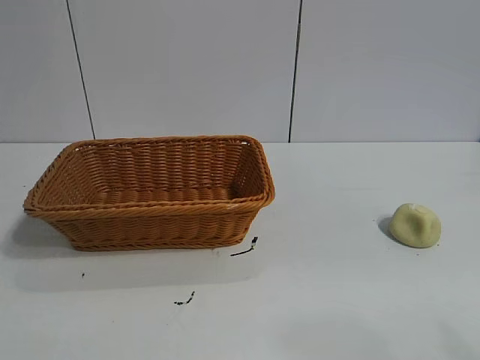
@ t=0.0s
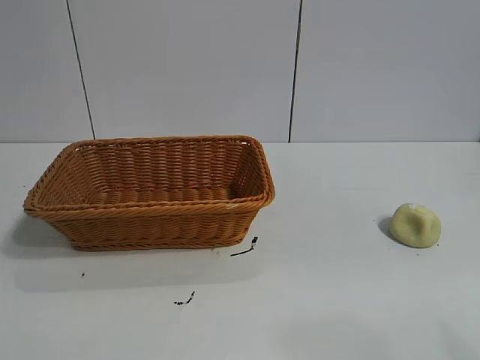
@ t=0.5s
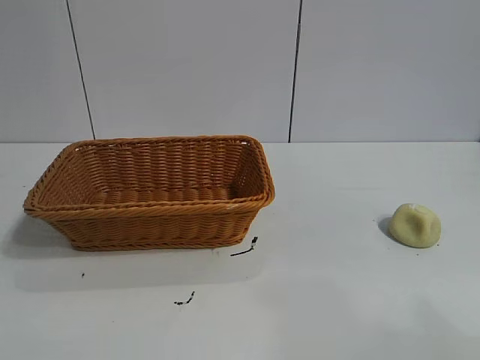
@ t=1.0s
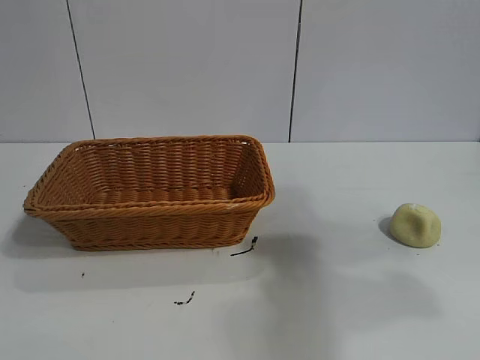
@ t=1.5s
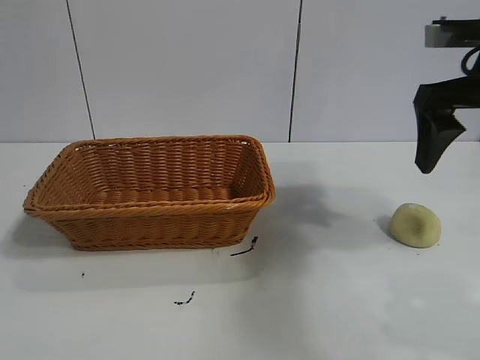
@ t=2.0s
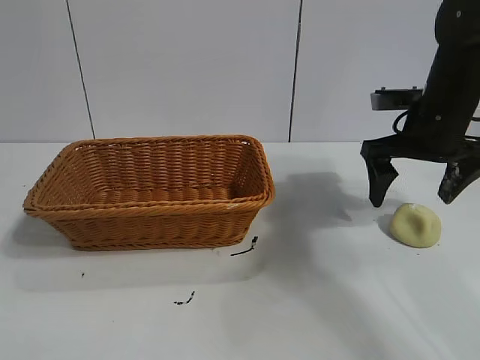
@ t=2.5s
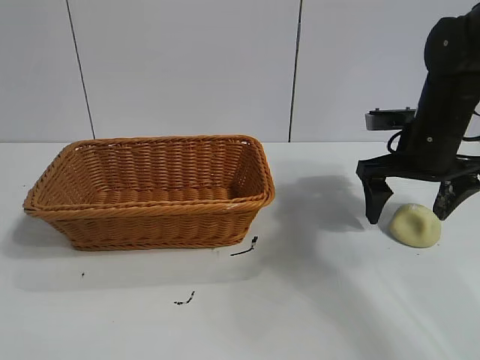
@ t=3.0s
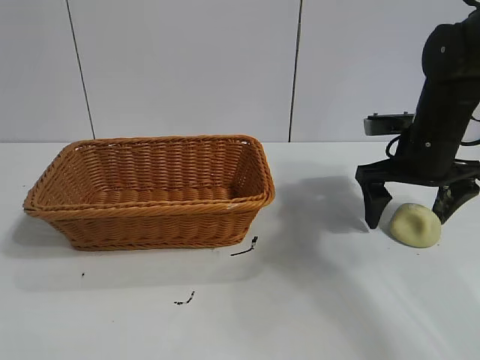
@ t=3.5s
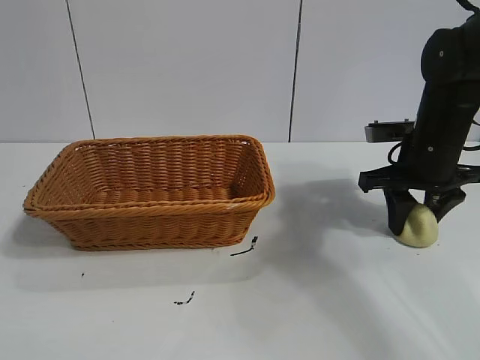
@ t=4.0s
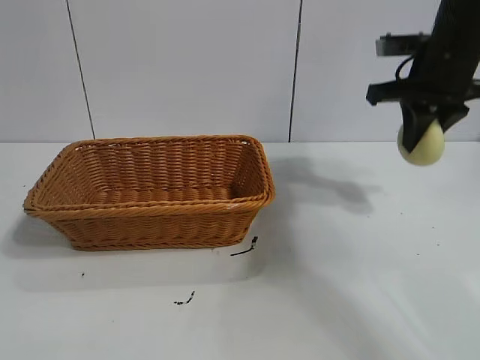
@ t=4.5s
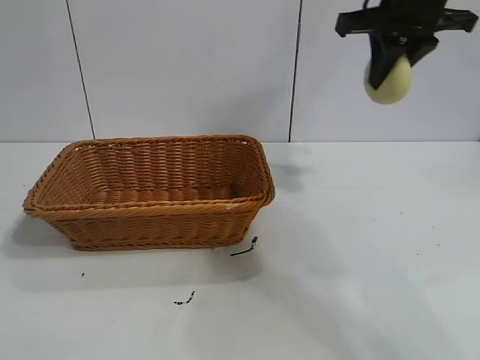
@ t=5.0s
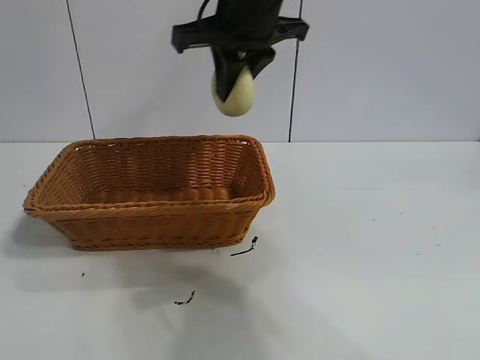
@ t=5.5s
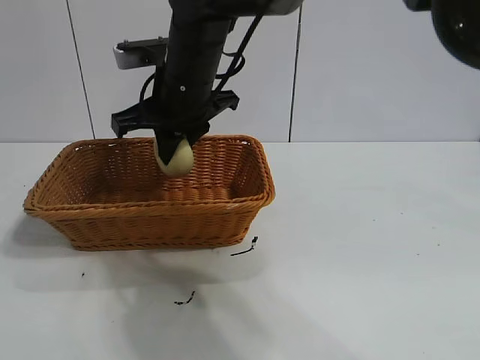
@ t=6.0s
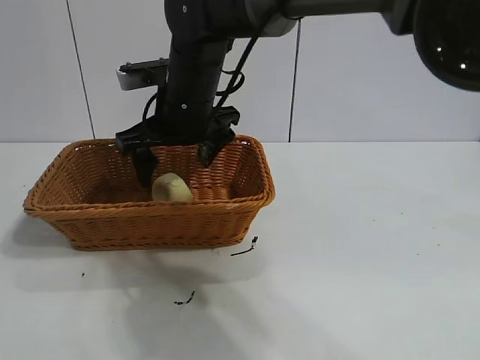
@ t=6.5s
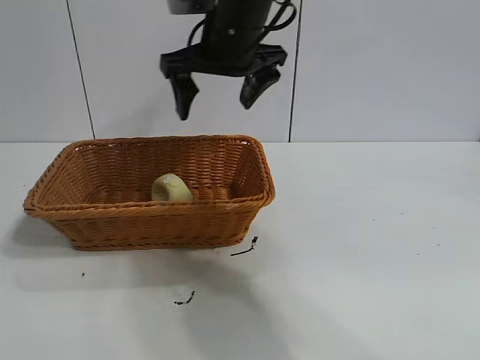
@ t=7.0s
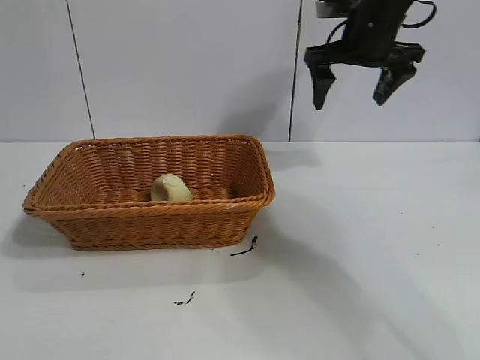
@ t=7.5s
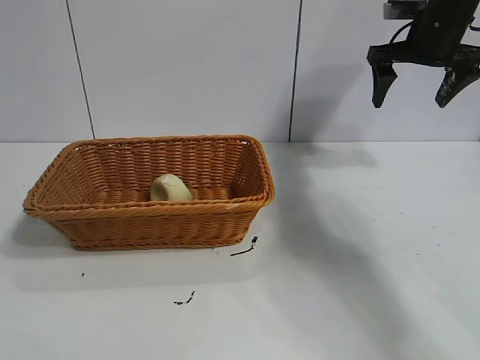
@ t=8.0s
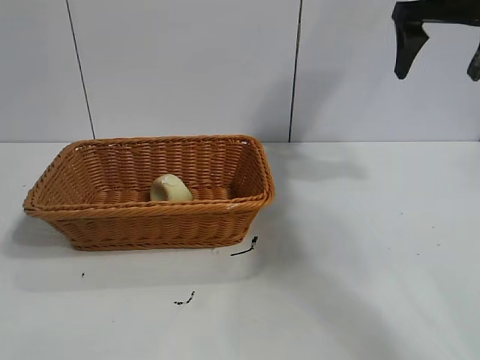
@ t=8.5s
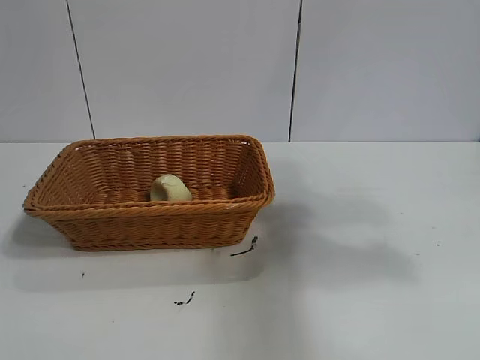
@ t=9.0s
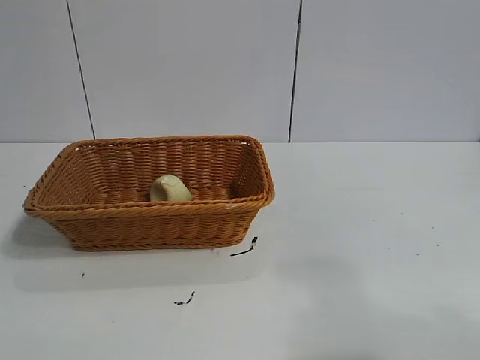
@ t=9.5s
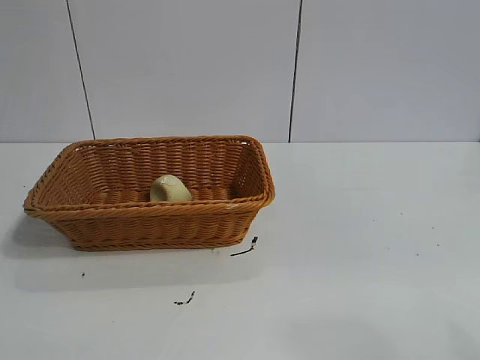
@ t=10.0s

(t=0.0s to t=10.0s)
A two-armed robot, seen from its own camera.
Task of the whole recording: pick up the egg yolk pastry and put it into the basket.
Step, t=1.0s - t=4.0s: Grasp egg yolk pastry with right gripper.
Step, t=4.5s - t=6.5s: Place the egg yolk pastry in the basket with right gripper.

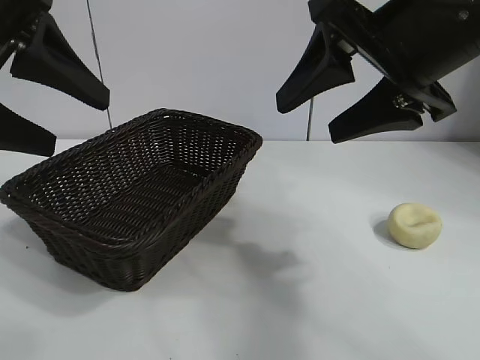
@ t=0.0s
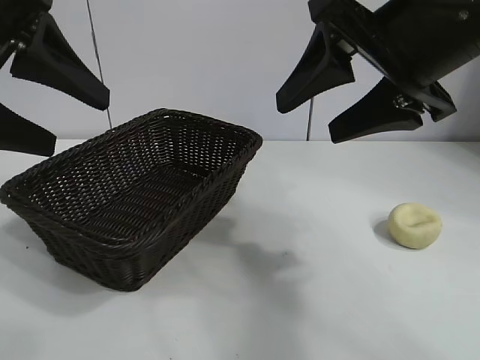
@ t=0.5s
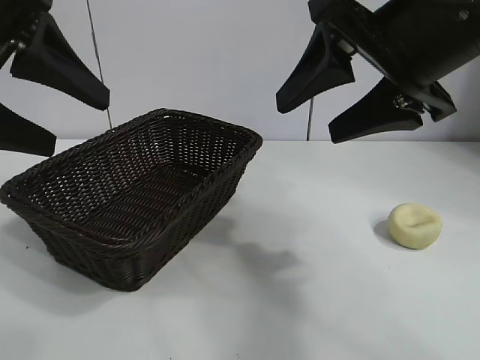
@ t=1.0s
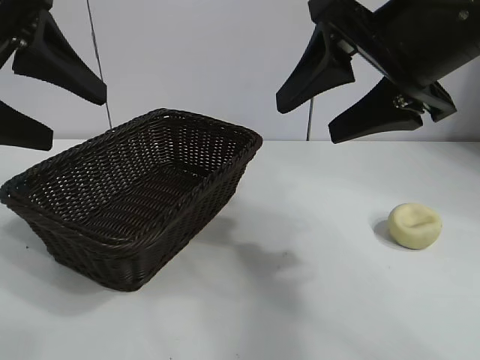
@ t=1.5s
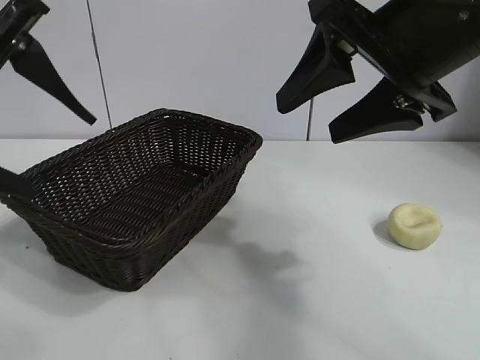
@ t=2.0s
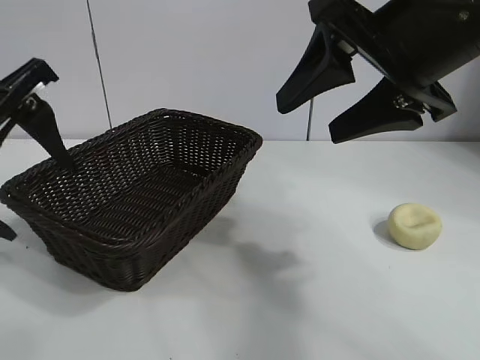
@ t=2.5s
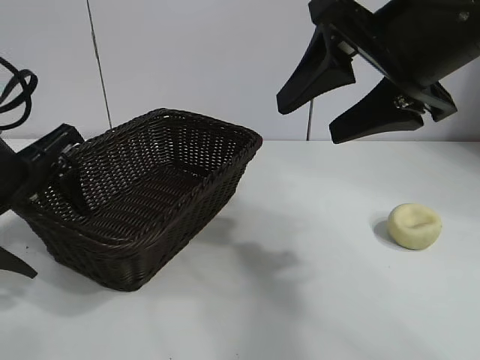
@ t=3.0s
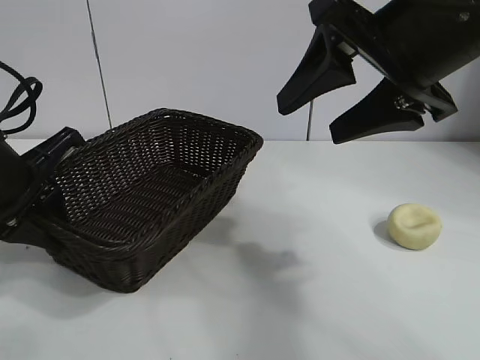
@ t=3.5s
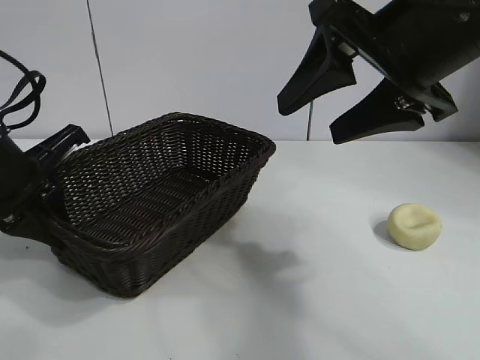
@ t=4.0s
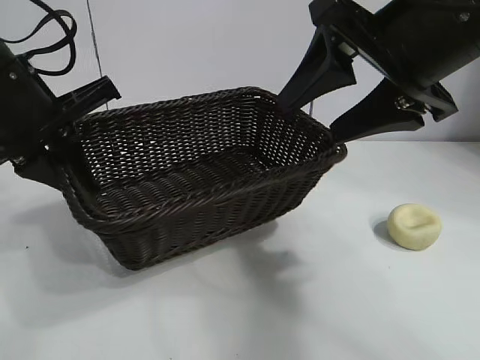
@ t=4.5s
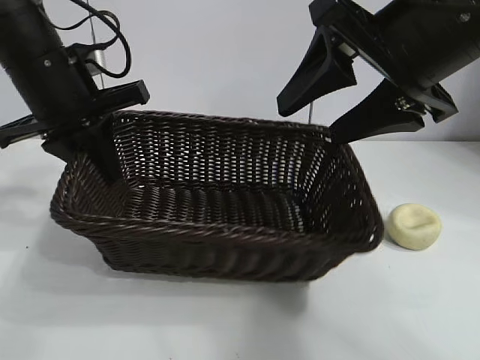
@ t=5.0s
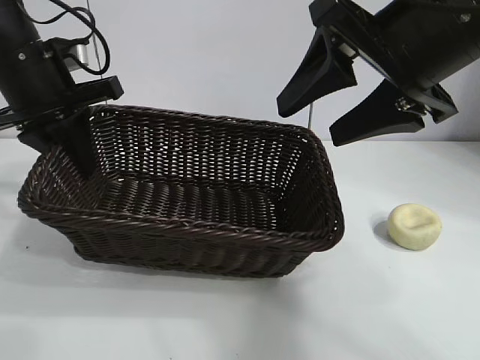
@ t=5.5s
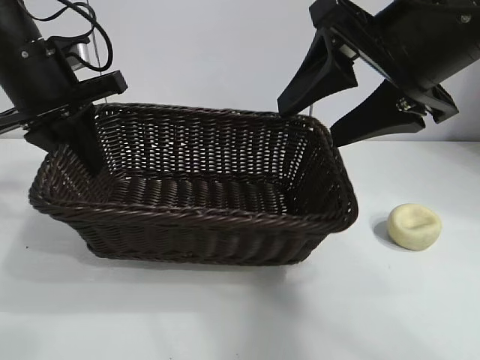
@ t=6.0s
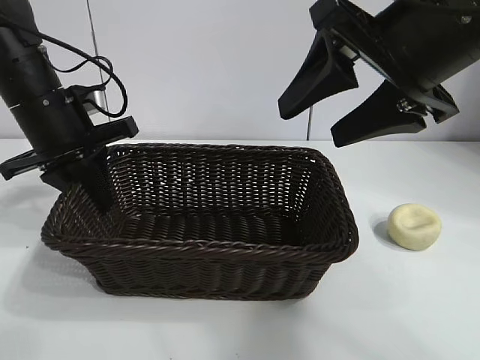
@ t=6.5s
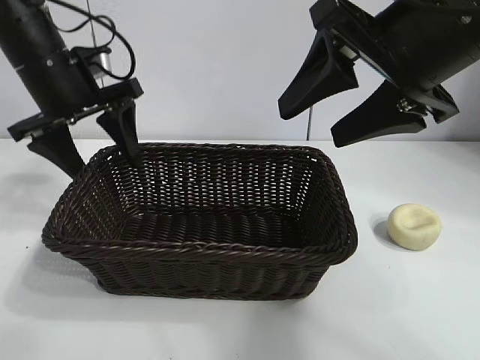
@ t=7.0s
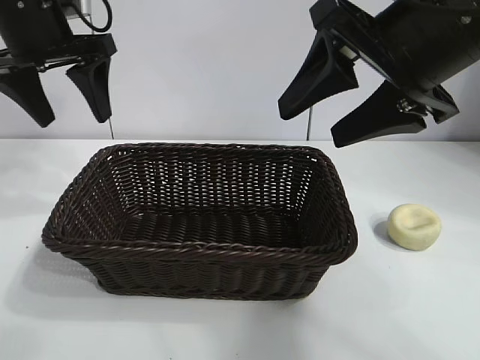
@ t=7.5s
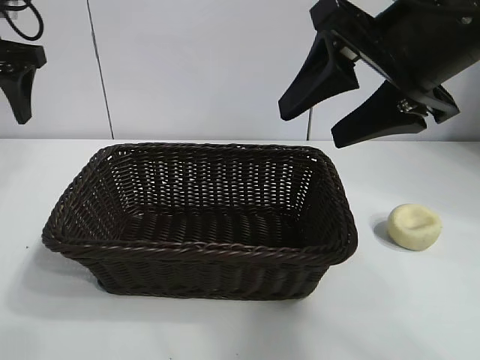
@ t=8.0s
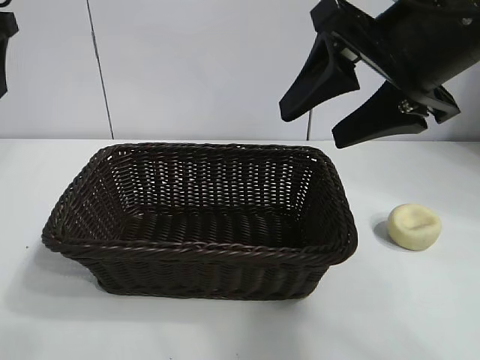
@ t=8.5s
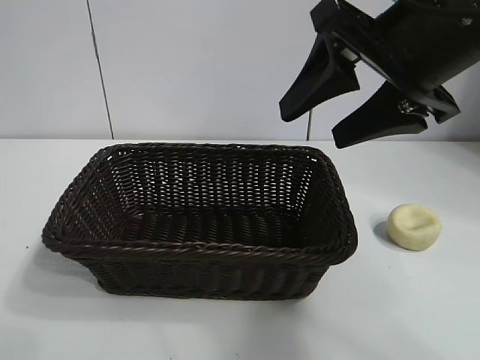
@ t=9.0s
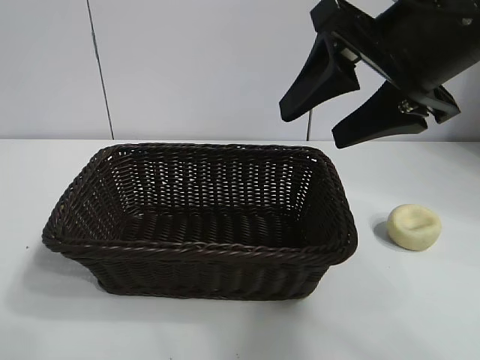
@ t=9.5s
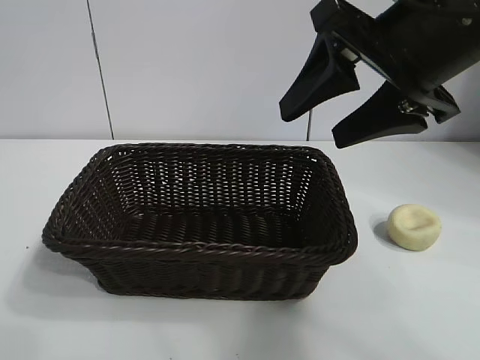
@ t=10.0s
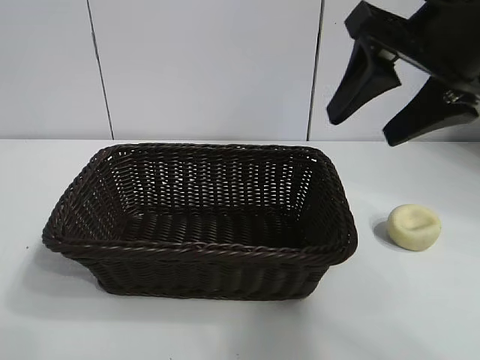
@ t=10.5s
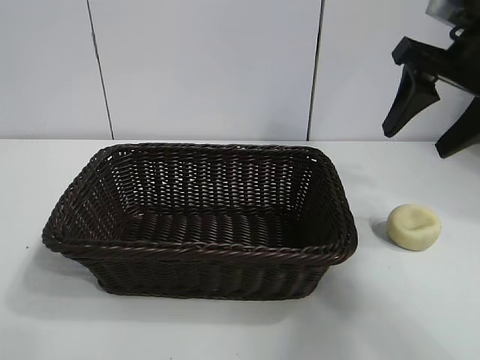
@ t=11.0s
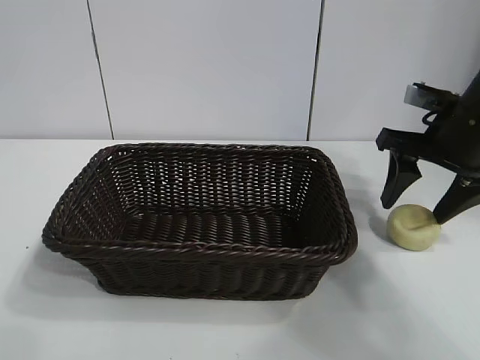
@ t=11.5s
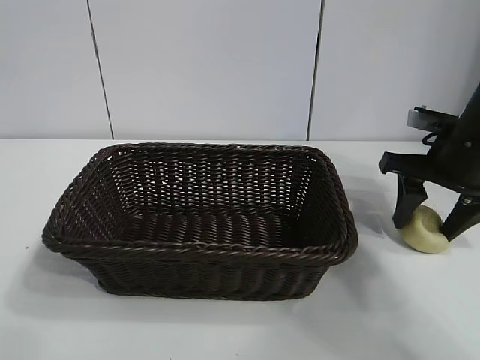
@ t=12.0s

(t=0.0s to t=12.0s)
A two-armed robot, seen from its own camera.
Task of the whole recording: pick up the egg yolk pastry and put it into the basket.
Step, t=1.5s - t=3.5s: Grasp the basket with left gripper.
Step, t=4.0s - t=7.0s: Place the basket in the center of view with left gripper.

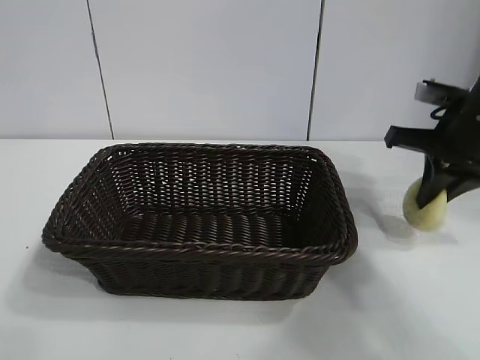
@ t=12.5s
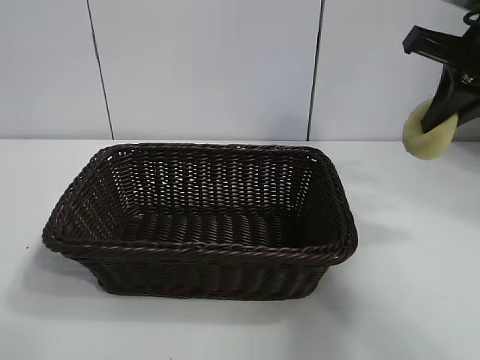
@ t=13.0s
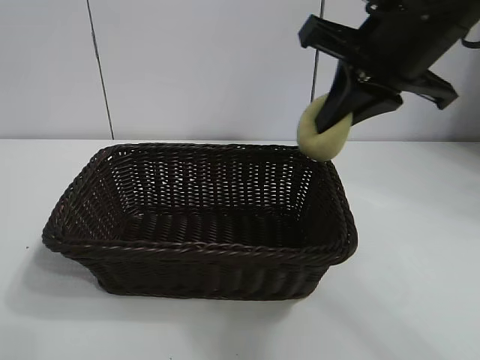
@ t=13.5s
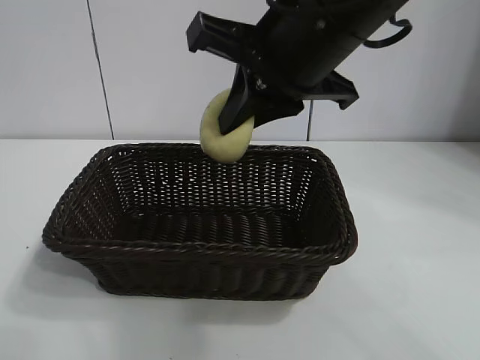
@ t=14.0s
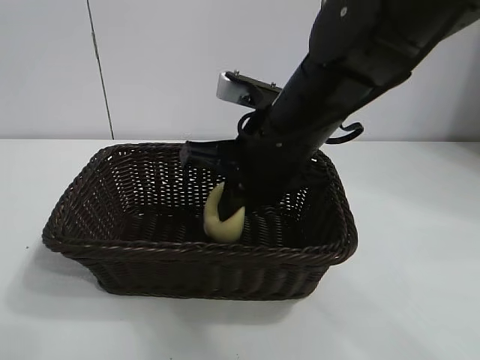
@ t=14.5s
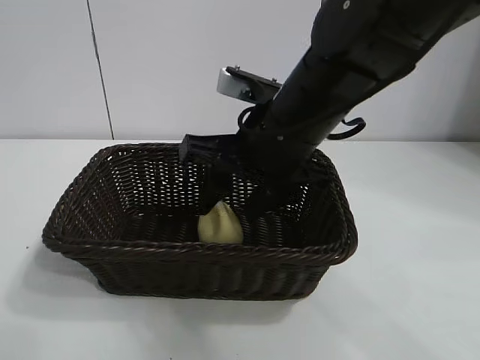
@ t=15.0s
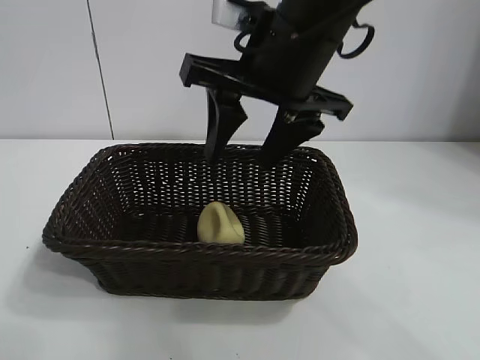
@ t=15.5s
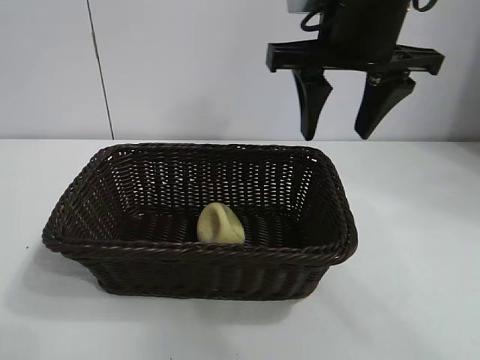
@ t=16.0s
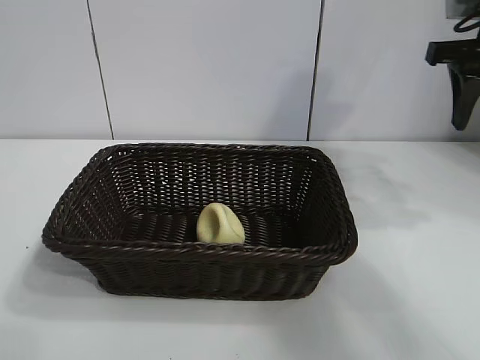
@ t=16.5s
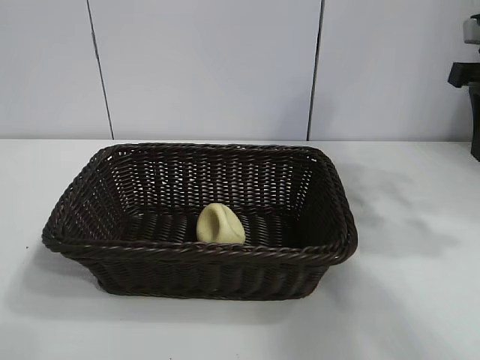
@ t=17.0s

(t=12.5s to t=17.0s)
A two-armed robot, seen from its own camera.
Task of the whole recording: pick up the egg yolk pastry and put it into the basket.
Step, t=12.5s - t=15.0s: Place the egg yolk pastry in the basket with right gripper.
